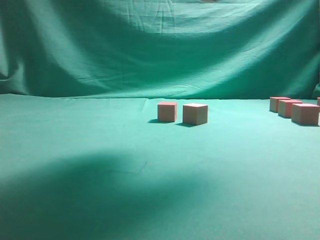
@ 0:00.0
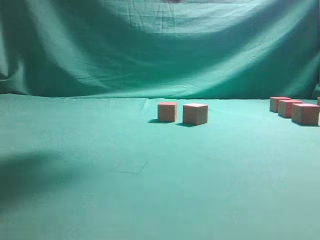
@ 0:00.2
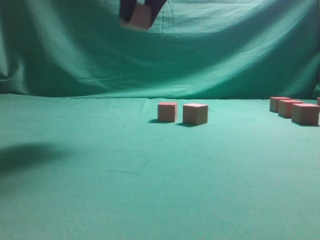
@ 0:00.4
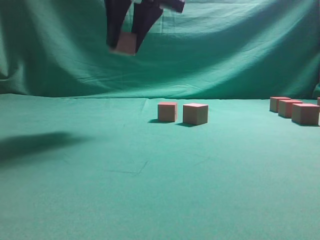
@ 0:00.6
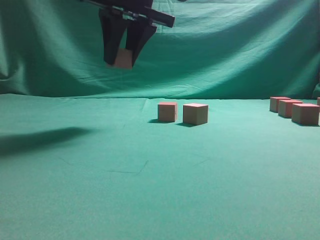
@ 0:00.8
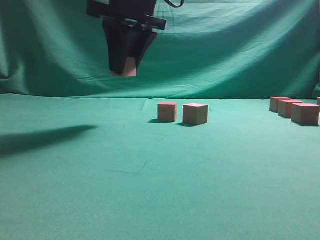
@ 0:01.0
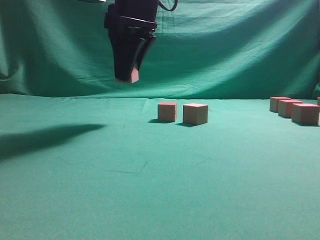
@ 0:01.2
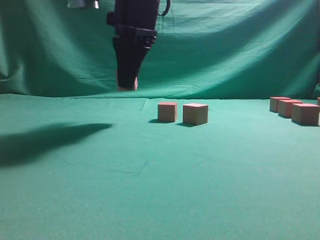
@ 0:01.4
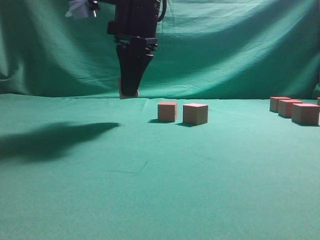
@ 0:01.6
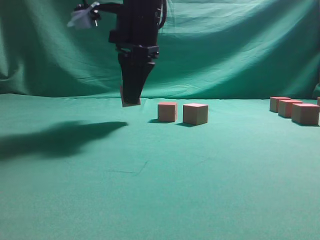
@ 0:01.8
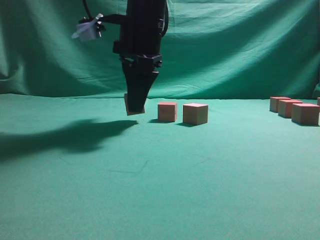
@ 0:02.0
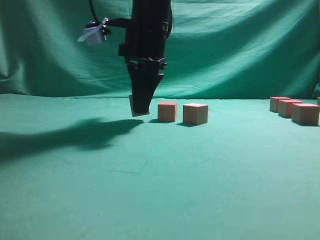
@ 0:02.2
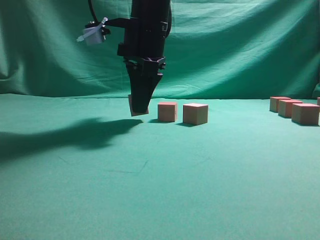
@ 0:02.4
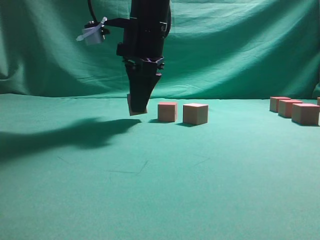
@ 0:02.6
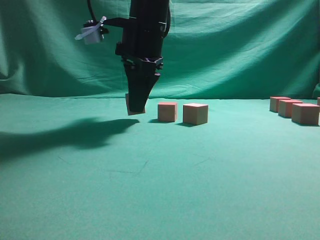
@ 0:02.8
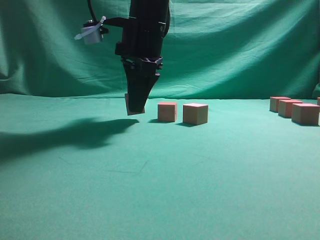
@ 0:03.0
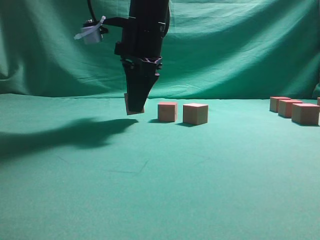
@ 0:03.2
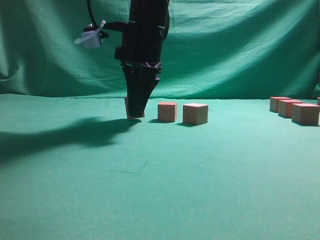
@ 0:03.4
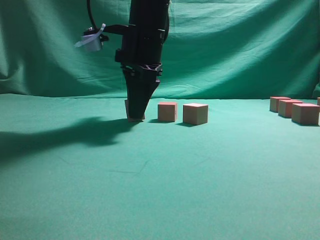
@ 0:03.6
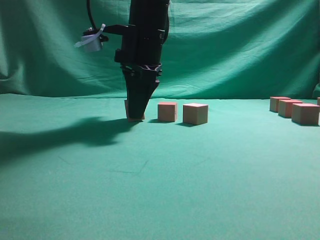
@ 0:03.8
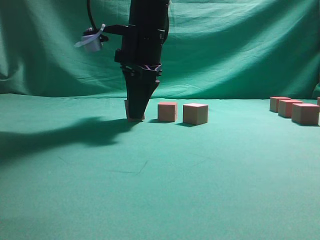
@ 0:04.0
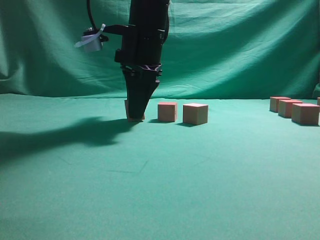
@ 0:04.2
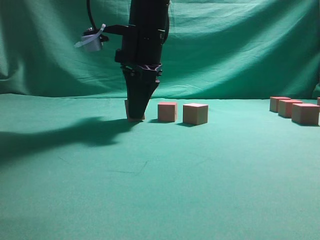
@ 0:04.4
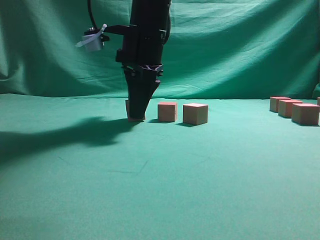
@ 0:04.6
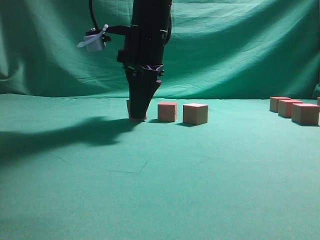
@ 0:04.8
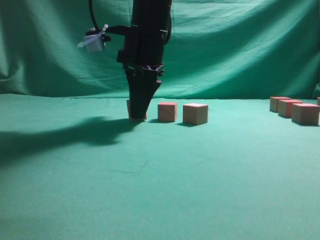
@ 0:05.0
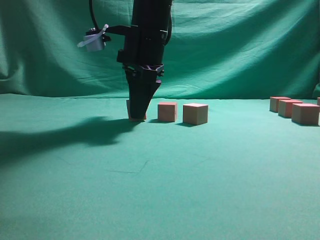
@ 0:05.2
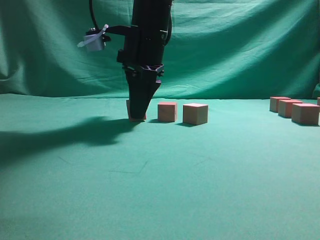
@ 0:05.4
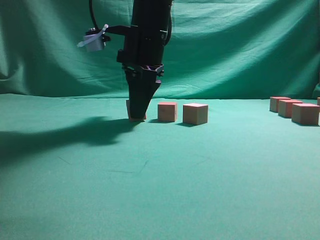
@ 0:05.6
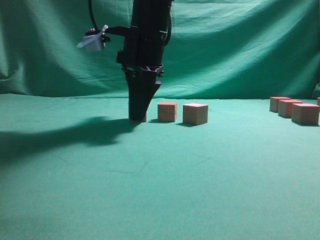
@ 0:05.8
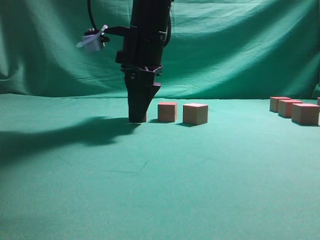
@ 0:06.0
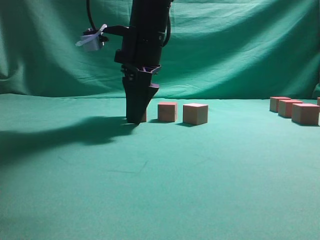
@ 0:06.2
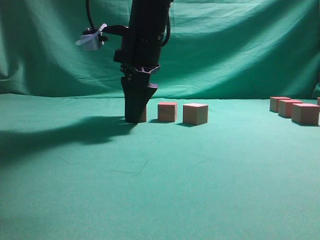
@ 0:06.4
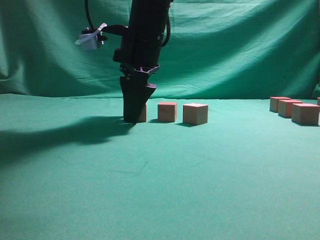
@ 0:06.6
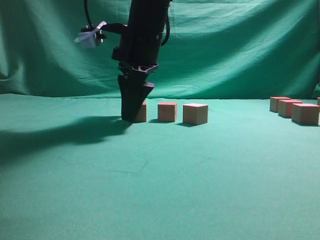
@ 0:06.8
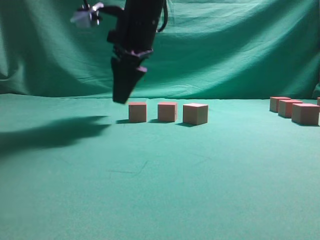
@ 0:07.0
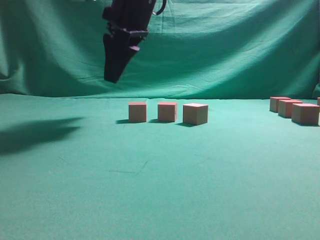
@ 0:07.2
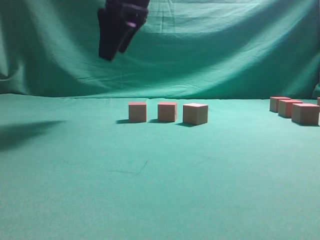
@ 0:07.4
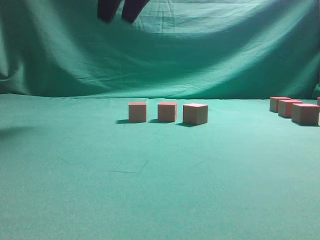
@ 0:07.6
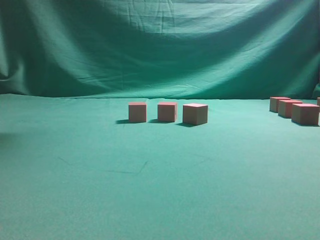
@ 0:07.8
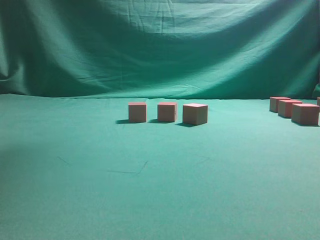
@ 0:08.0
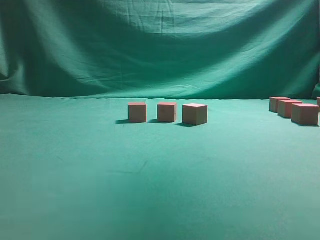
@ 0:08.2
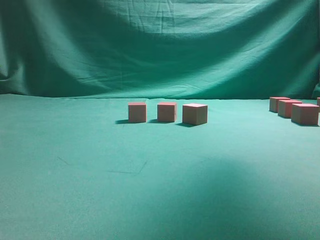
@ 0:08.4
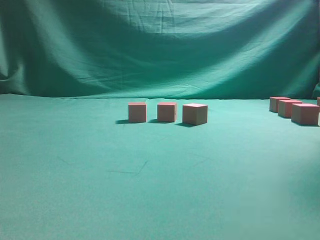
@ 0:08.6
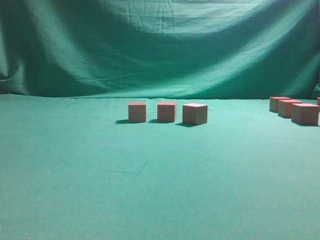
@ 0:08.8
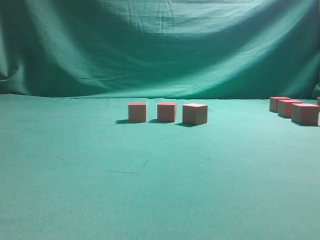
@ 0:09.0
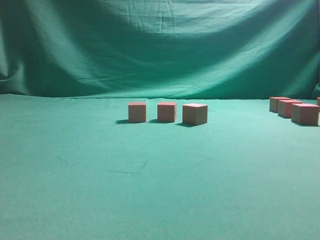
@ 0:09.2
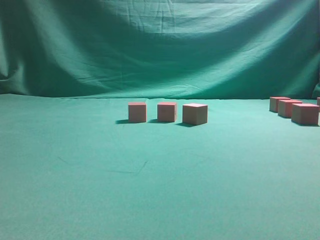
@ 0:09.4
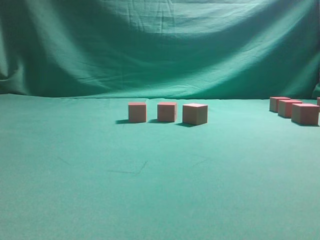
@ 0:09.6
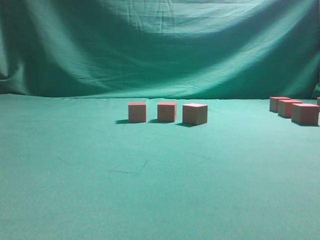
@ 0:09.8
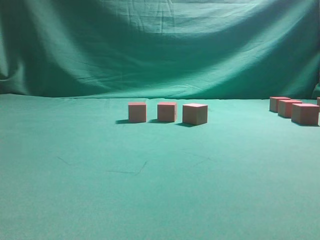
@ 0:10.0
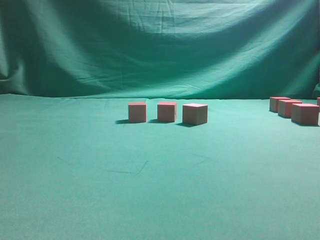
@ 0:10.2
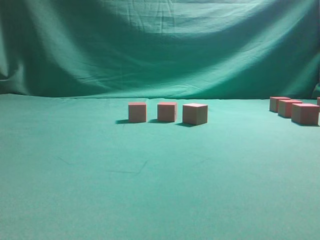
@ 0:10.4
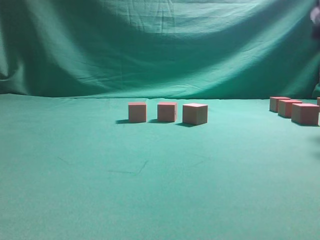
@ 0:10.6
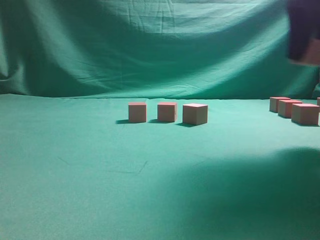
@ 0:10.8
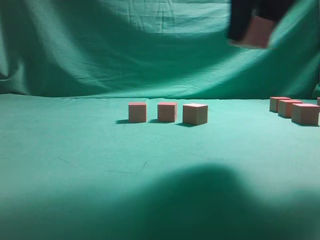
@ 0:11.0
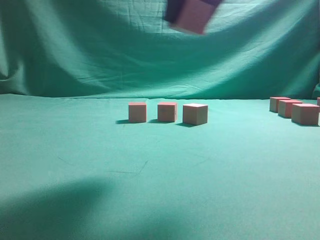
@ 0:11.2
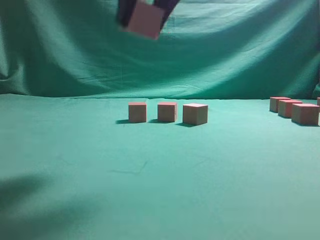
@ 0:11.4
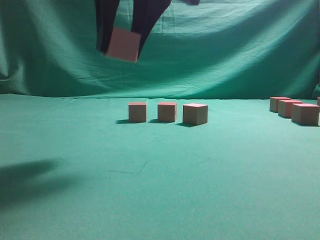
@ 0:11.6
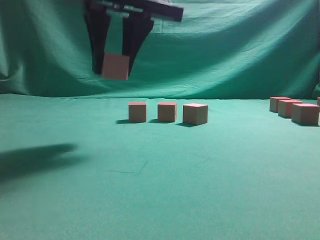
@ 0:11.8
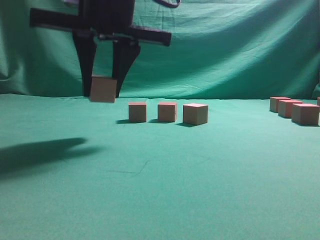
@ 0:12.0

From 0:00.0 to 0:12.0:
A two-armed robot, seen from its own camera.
Task of the whole recording: pick up the multiple cubes in two columns one by one and place them in another position on the table.
Step, from 0:00.0 to 0:07.4: Place the block at the correct position to assemble the letter S.
Step, from 0:07.6 to 0:10.6: Pick up the block on the table.
From 0:00.0 to 0:01.6: The right gripper heads to the left, downward and forward, covering roughly 20 cm.
From 0:01.6 to 0:03.0: The grippers move only a little.
From 0:03.0 to 0:04.4: Both grippers stay put.
From 0:04.4 to 0:06.0: The right gripper opens.
From 0:06.0 to 0:07.6: The right gripper is displaced upward by roughly 15 cm.
From 0:07.6 to 0:09.0: The right gripper heads to the right, covering roughly 35 cm.
From 0:10.4 to 0:12.0: The right gripper travels to the left by some 40 cm.

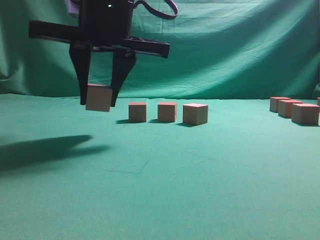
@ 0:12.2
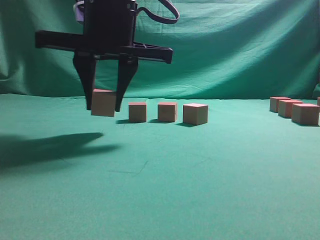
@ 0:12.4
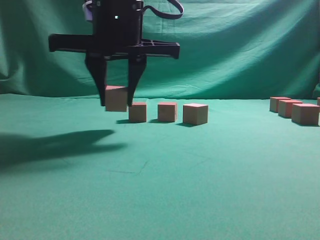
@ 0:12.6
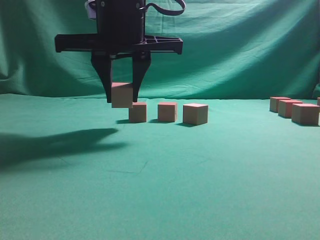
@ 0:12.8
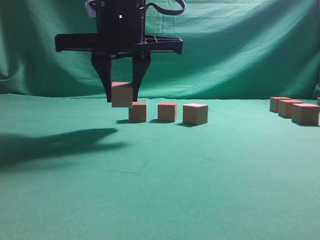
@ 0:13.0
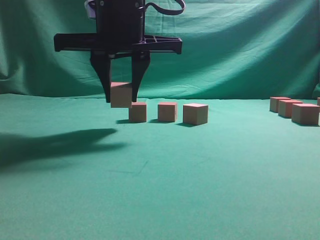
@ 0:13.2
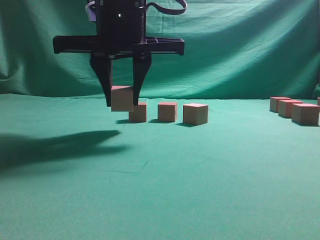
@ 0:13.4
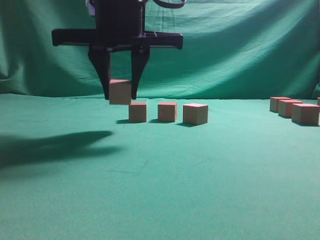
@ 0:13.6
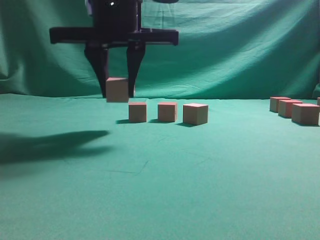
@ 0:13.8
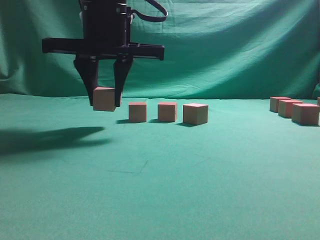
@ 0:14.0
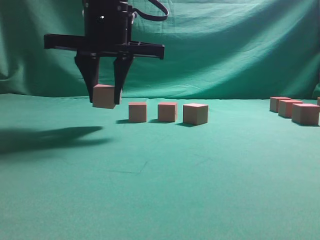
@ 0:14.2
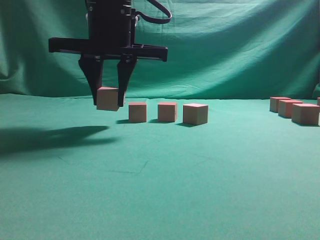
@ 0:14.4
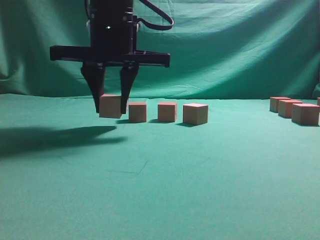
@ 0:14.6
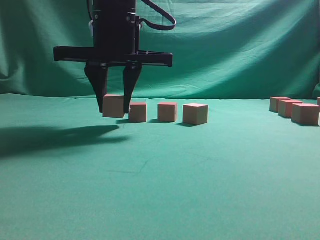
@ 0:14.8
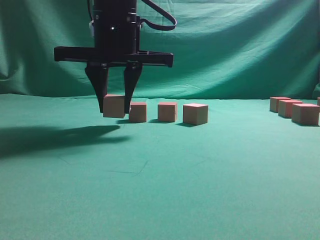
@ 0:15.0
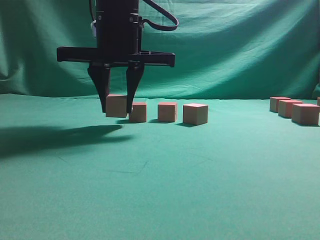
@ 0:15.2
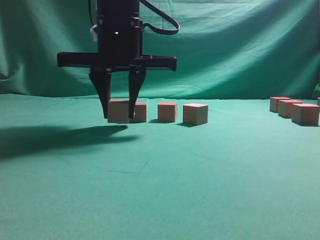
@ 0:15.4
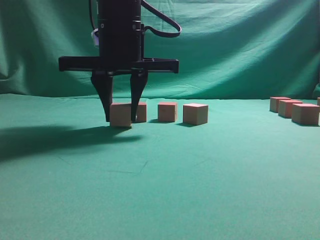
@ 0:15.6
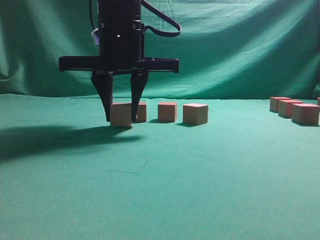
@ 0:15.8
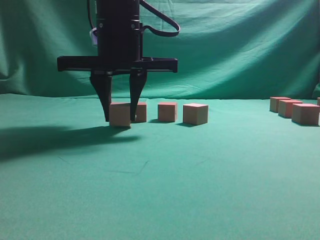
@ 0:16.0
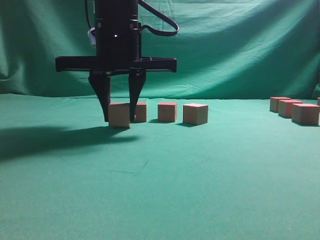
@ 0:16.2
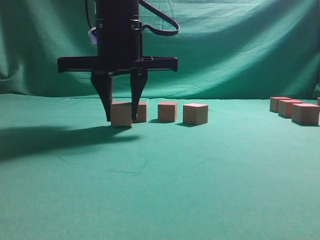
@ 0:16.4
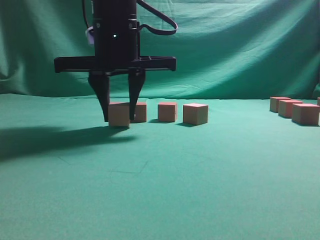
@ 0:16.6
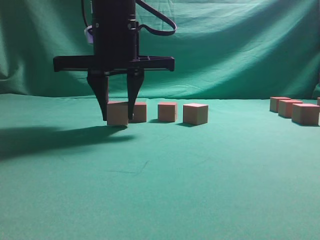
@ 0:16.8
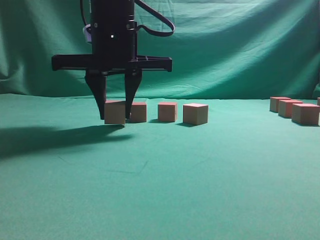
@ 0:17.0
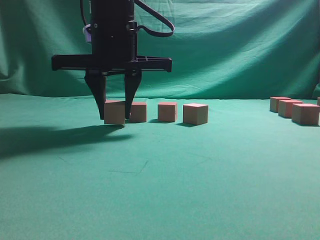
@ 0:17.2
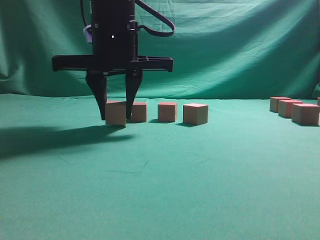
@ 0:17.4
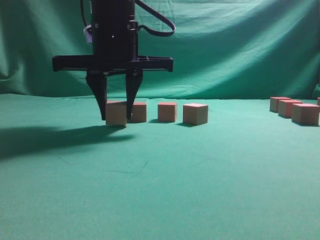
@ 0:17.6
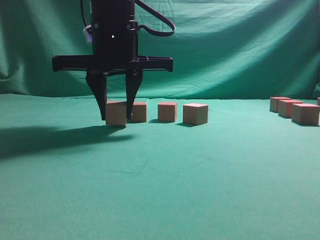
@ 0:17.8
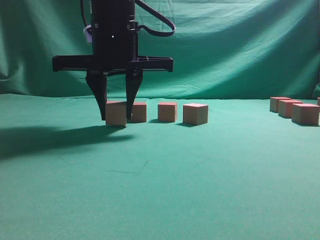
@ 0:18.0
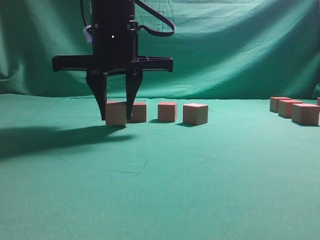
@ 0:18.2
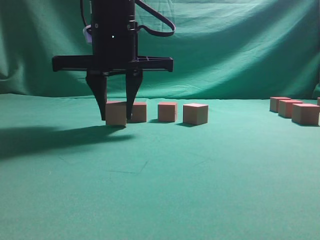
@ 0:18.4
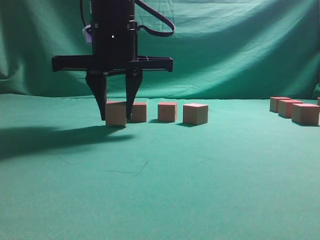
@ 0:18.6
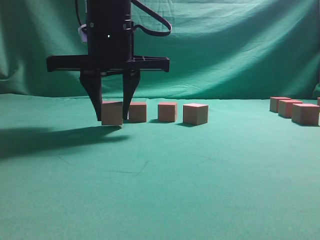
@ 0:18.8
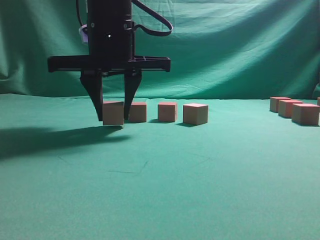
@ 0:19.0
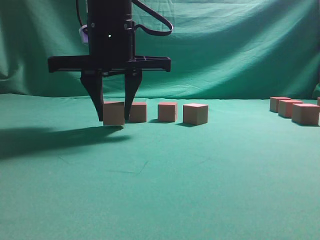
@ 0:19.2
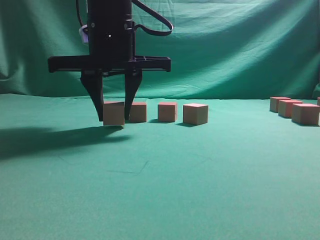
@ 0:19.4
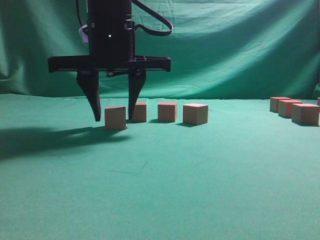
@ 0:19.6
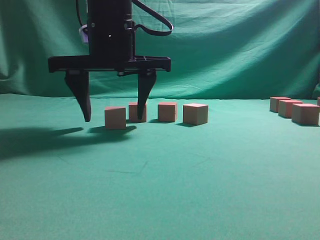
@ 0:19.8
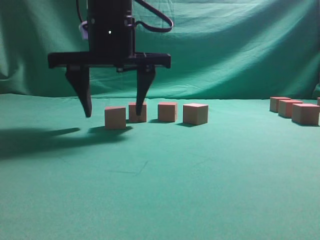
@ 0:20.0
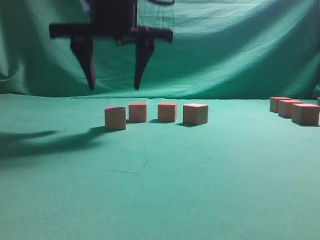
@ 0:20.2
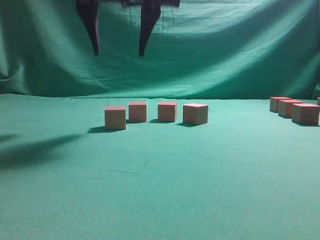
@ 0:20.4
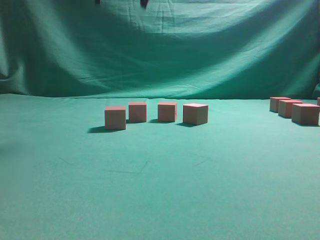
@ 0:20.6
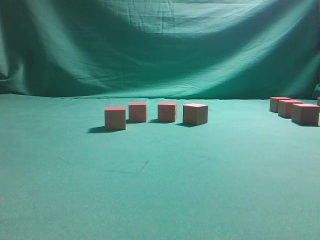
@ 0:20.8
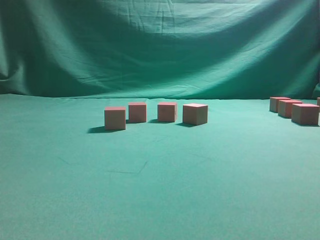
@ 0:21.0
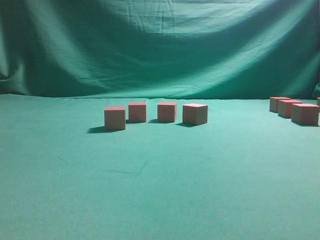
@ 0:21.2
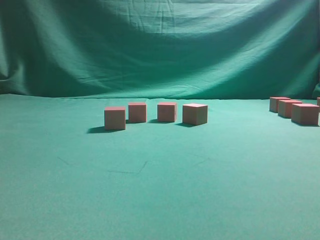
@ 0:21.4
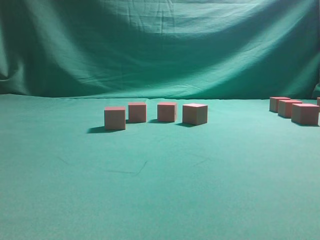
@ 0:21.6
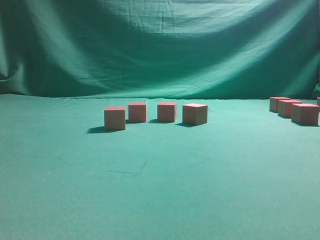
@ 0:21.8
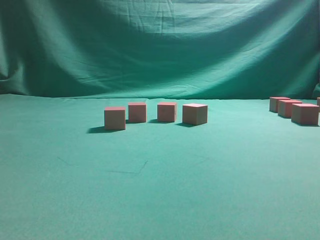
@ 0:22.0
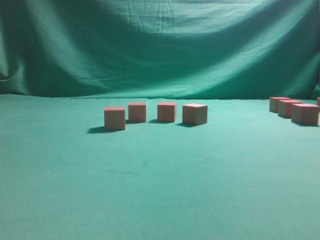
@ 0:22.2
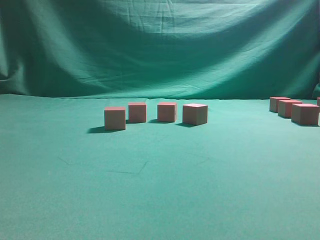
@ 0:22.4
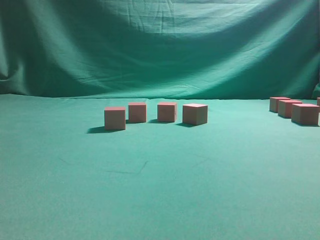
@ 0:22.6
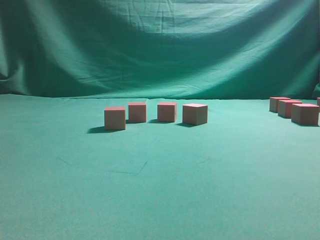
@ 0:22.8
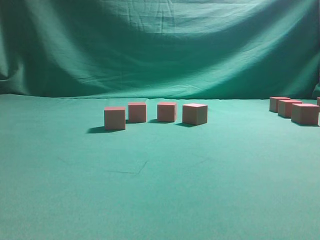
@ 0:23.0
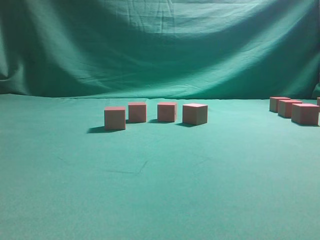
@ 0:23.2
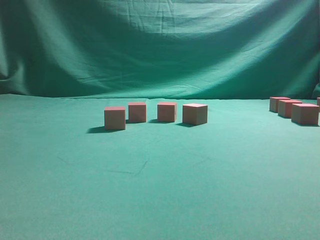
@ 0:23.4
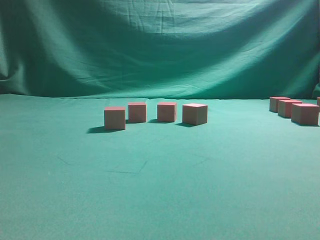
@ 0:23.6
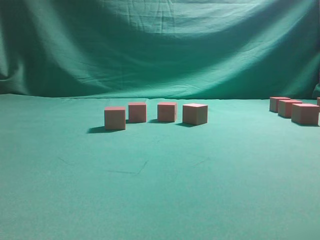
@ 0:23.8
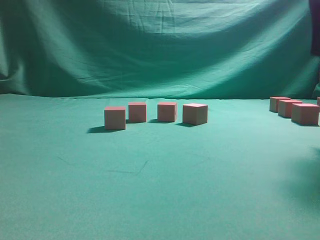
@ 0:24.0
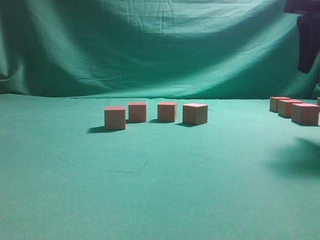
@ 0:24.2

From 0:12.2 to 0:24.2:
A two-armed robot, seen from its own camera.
Task of the whole recording: pick up the multiple cubes in two columns one by one and place them in another position on the table.
Step, from 0:12.2 to 0:20.2: Place the block at the correct position to assemble the letter S.
From 0:12.2 to 0:15.2: The grippers stay close to where they were, moving slightly.
From 0:15.2 to 0:18.2: Neither gripper changes place.
From 0:18.2 to 0:19.8: The right gripper opens up.
From 0:19.8 to 0:21.2: The right gripper is displaced upward and to the right by some 35 cm.
From 0:22.6 to 0:24.2: The right gripper moves forward and downward, approximately 30 cm.
